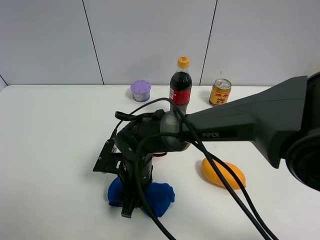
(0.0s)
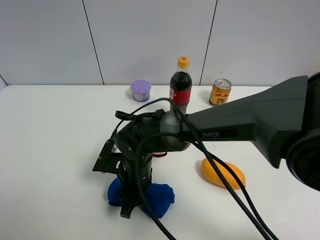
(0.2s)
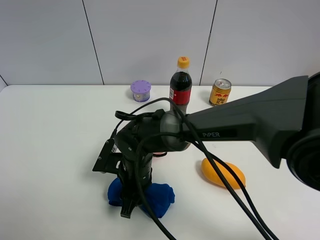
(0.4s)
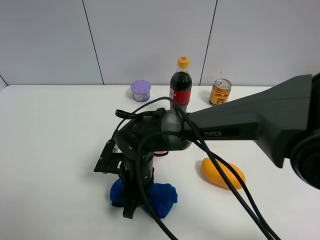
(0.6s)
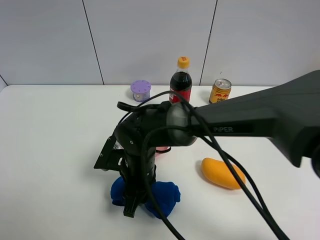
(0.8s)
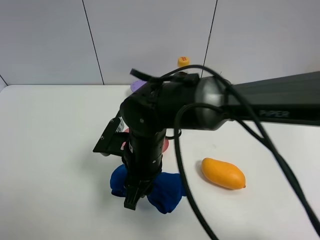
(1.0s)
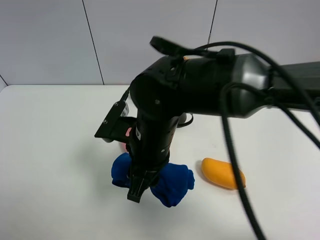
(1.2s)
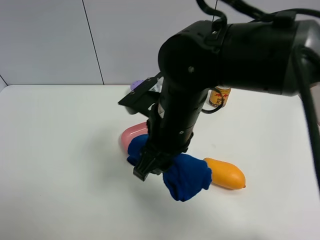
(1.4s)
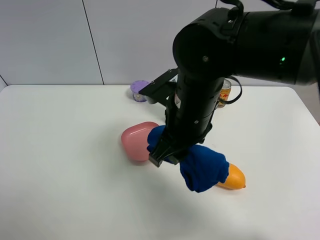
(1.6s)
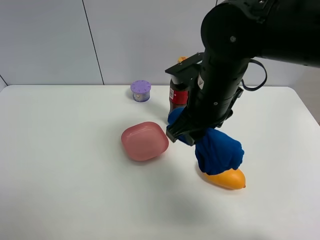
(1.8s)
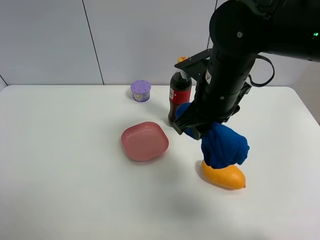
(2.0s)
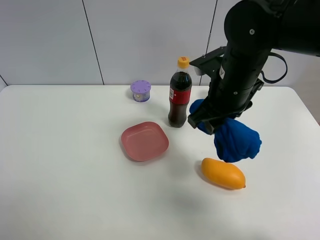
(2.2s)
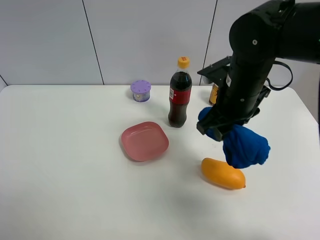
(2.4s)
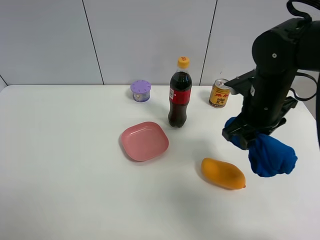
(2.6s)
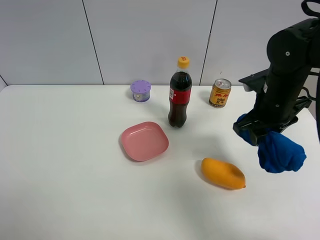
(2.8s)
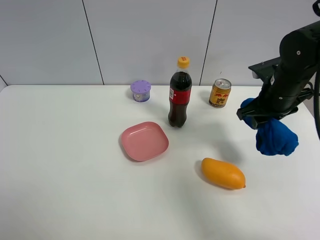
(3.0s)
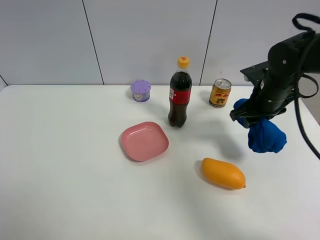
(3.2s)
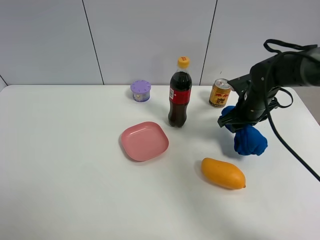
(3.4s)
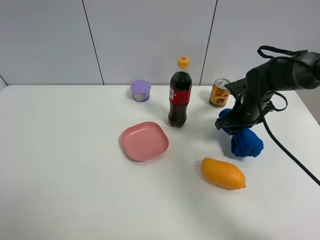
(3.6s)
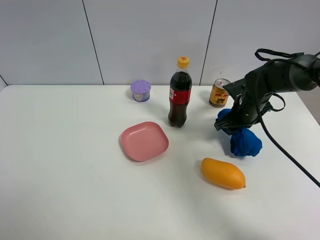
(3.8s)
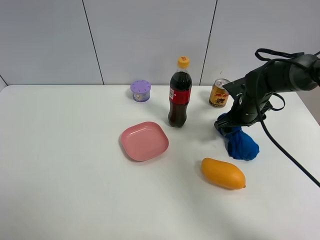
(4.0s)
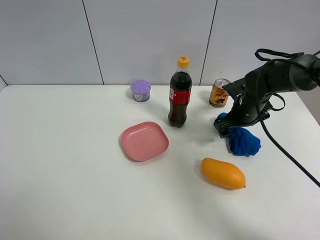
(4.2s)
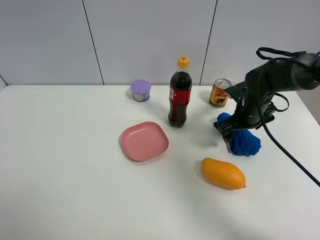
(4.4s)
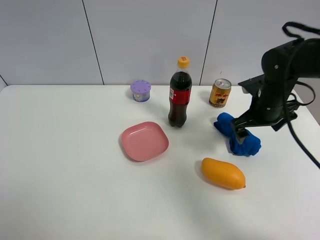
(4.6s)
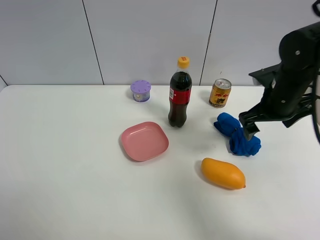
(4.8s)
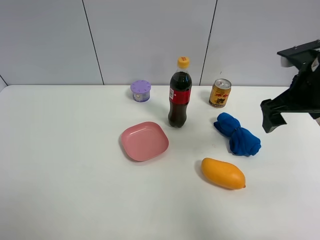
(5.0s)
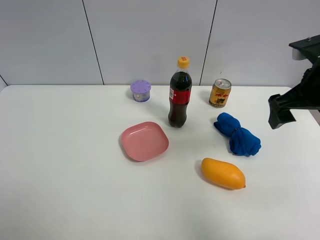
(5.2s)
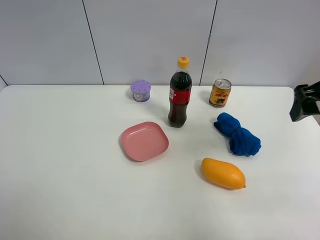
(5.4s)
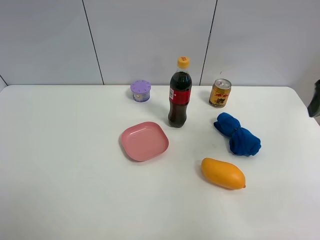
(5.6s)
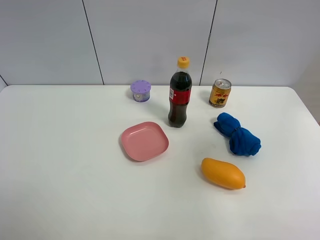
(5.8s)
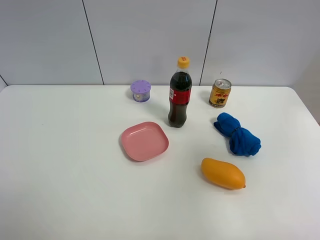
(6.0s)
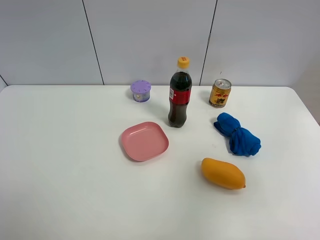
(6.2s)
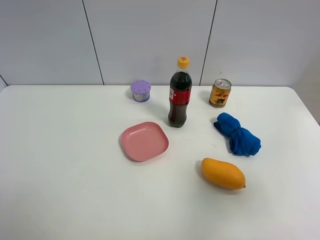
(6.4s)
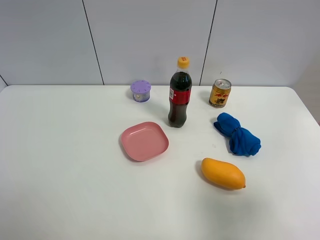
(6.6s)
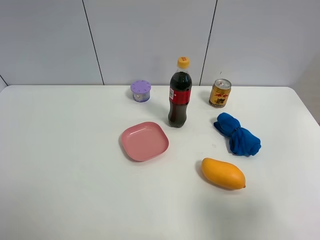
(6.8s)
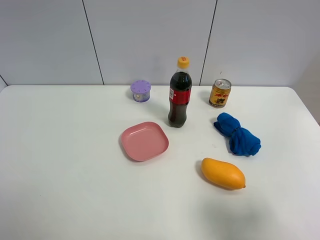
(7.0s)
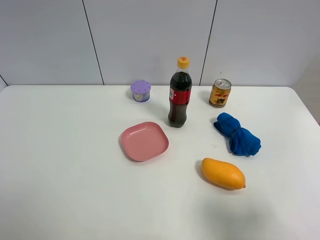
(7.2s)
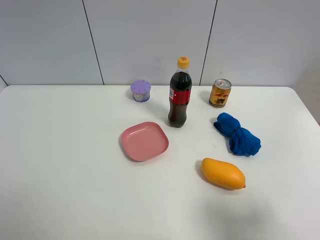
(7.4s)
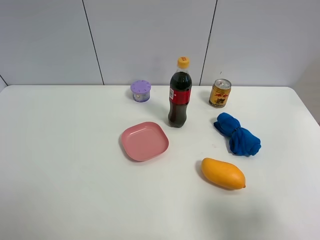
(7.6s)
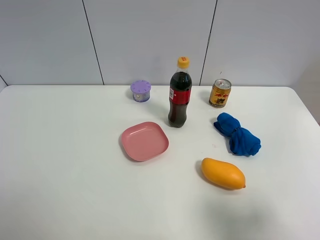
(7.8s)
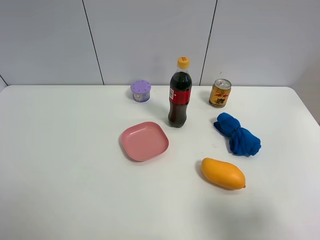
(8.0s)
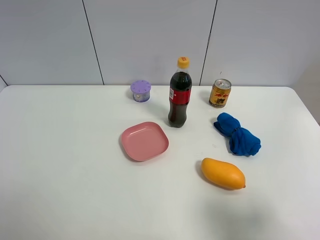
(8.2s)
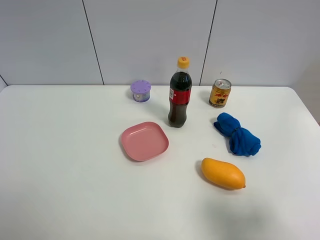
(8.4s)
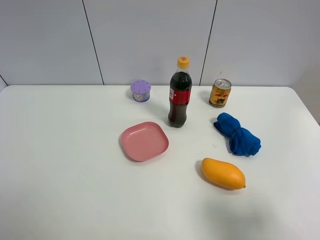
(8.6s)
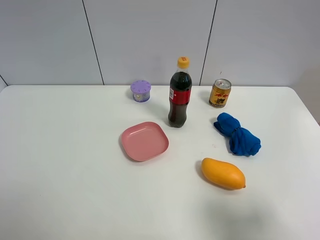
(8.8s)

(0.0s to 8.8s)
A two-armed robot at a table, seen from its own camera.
Task of the whole recording: the gripper move the object.
Step, 0.6s - 4.4s: Place the blue towel on the table with the right gripper.
0.0s - 1.4s: The right gripper heads upward and to the right, covering about 20 cm.
1.4s - 3.0s: The right gripper goes about 25 cm to the right and forward.
3.0s - 4.4s: The right gripper goes some 10 cm downward, and opens.
4.4s - 5.8s: The right gripper is displaced upward and backward by approximately 30 cm.
5.8s - 7.4s: The right gripper shifts approximately 20 cm backward and downward.
7.4s - 8.8s: Both grippers stay about where they are.

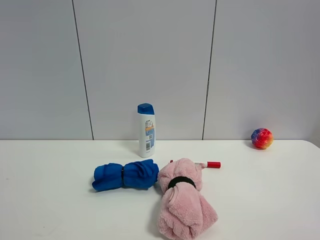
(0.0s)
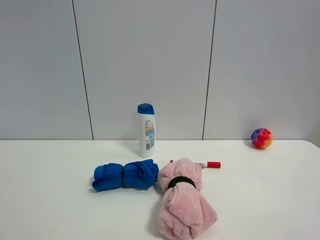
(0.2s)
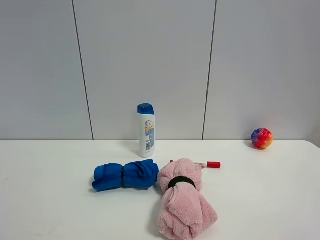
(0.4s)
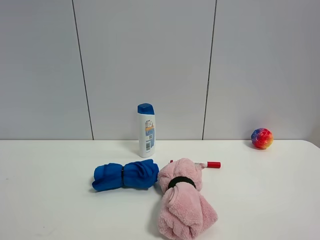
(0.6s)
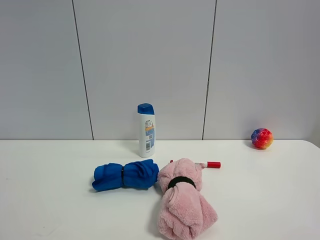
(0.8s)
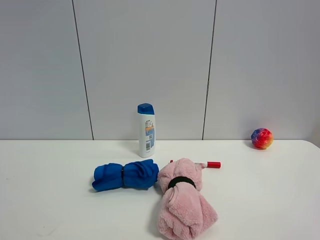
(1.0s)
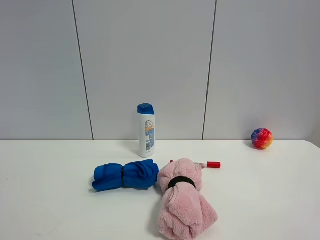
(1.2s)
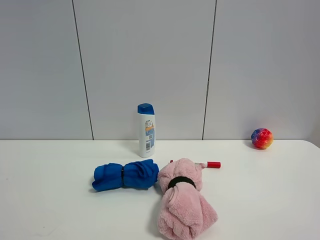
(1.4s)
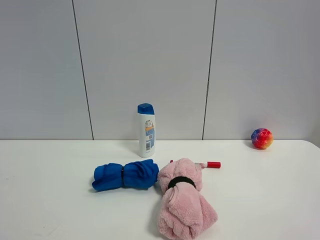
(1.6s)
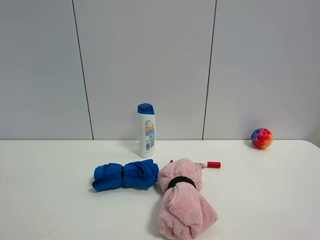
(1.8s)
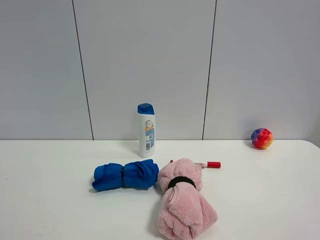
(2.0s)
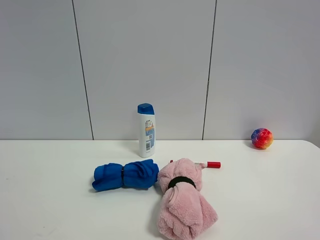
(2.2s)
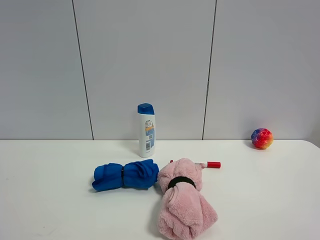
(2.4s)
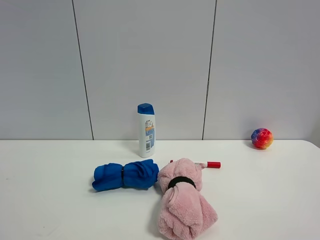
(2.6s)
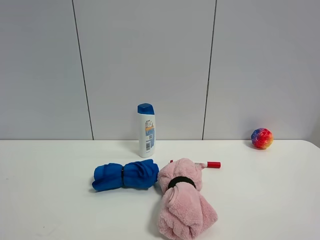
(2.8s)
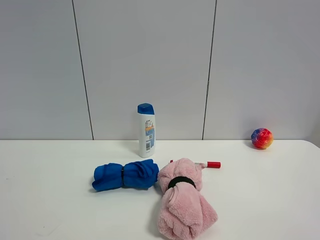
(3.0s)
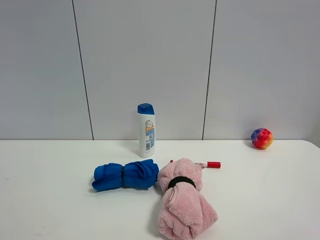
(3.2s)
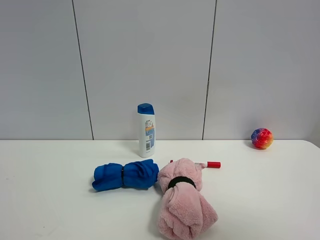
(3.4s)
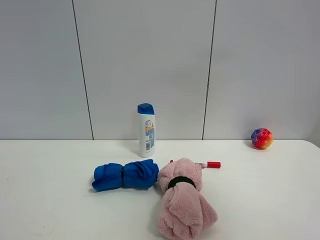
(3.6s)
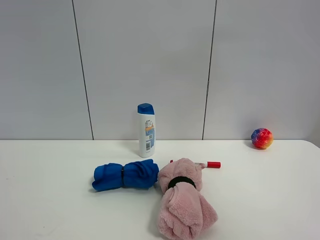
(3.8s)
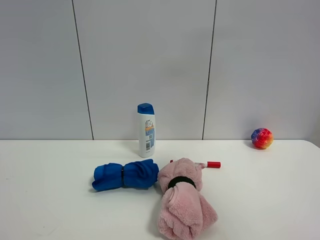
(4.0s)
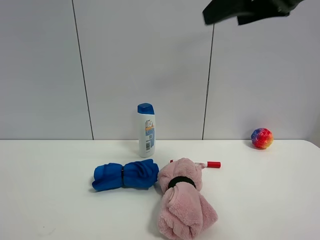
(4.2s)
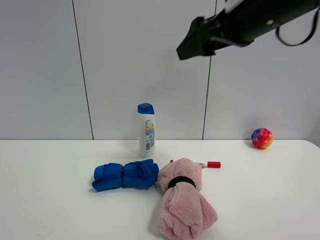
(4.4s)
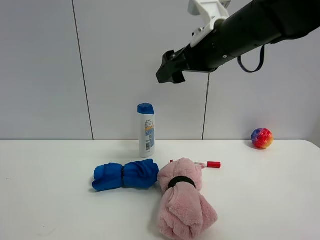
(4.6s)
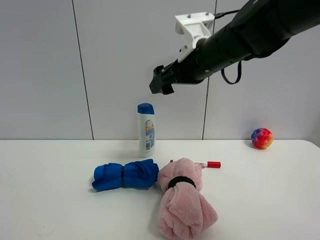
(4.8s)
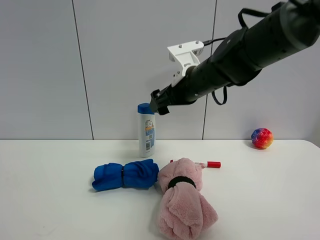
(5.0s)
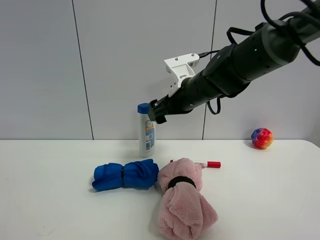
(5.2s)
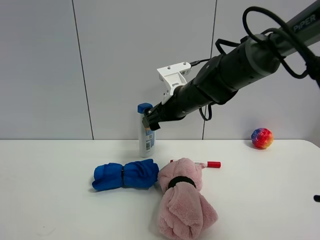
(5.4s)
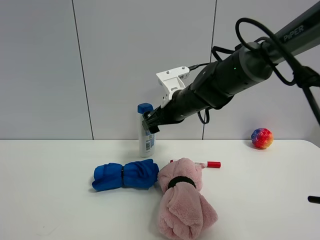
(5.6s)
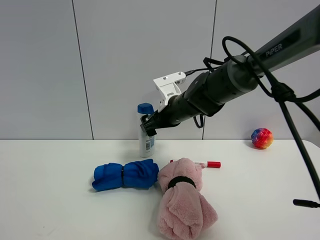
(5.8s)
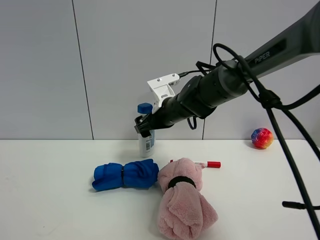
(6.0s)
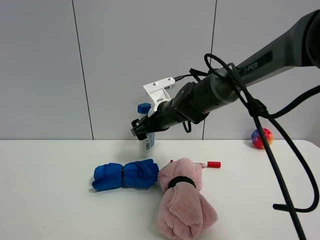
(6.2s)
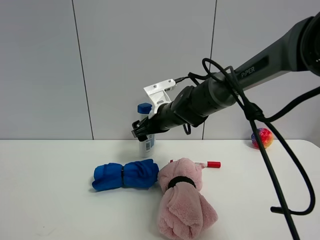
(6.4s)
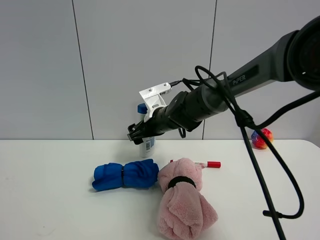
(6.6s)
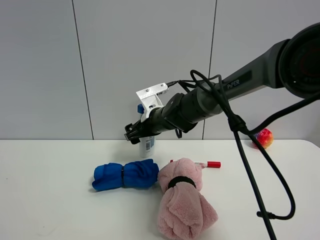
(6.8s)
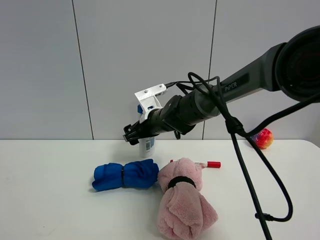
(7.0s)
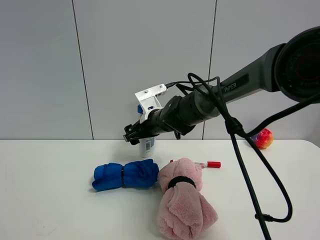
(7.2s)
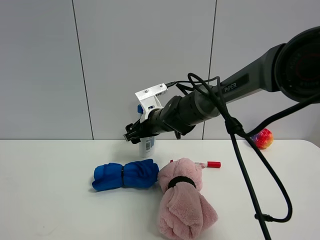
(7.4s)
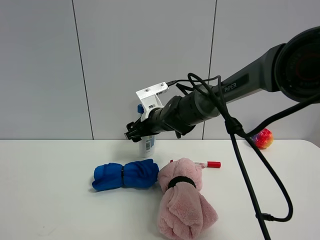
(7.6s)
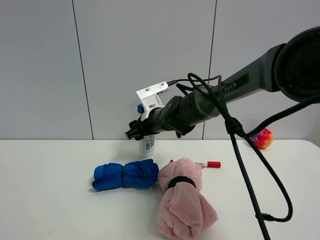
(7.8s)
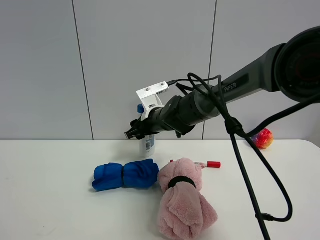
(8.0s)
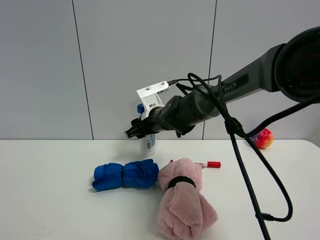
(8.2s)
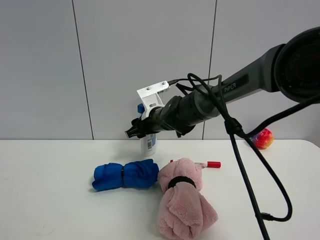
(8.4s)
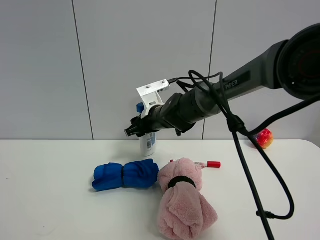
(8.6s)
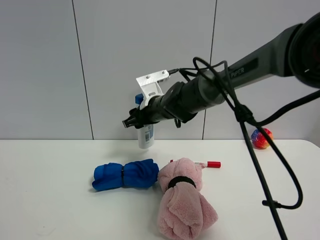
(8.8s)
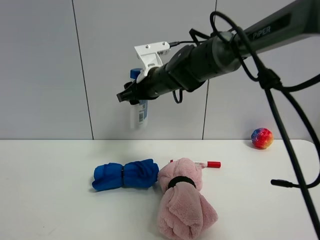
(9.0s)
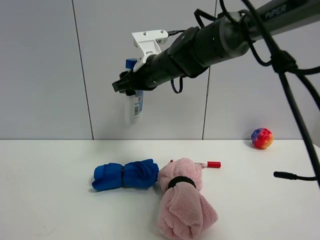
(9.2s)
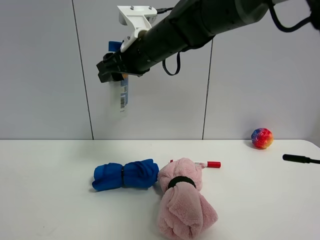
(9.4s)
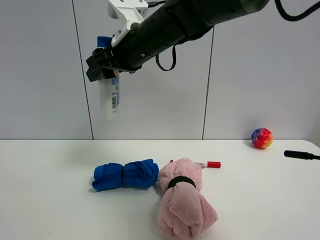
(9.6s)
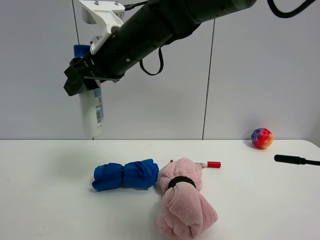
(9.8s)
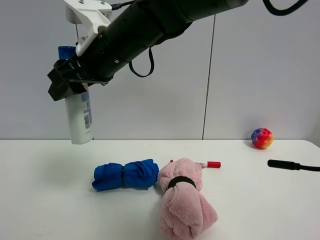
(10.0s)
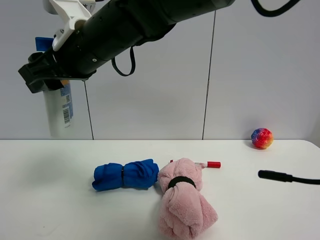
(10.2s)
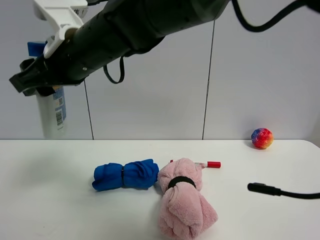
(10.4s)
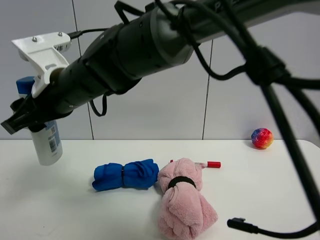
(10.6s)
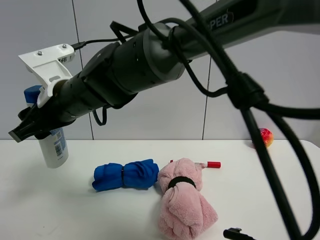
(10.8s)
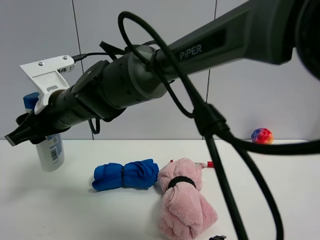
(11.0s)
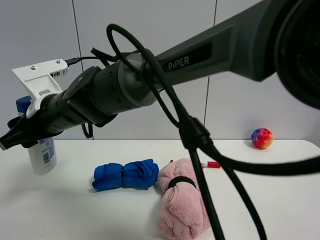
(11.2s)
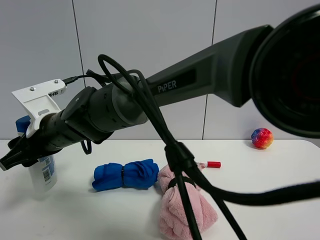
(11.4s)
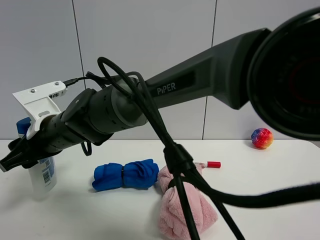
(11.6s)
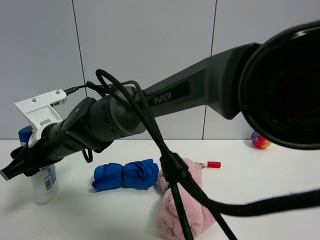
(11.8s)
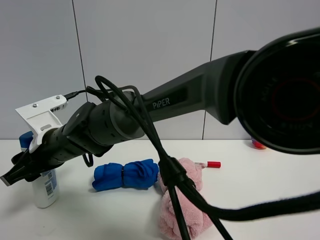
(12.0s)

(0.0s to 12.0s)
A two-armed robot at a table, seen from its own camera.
Task of the whole recording: the gripper move the object.
Step, 0.0s - 8.4s: Grasp the shampoo with the right gripper.
0.0s - 3.0s: The two grippers keep their place.
3.0s - 4.4s: The right gripper goes about 35 cm forward and to the left.
4.4s - 6.0s: The right gripper travels downward, forward and to the left by approximately 25 cm.
6.0s - 7.6s: The right gripper closes its fingers.
7.6s - 9.0s: The right gripper heads upward, covering approximately 10 cm, and closes.
9.0s - 10.4s: The right gripper shifts some 20 cm backward and to the left.
10.4s - 12.0s: The right gripper shifts some 15 cm downward.

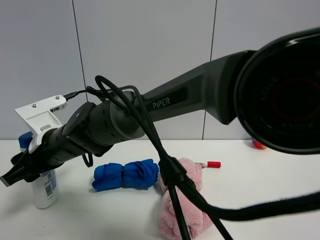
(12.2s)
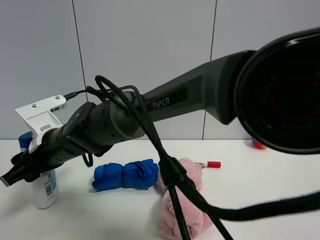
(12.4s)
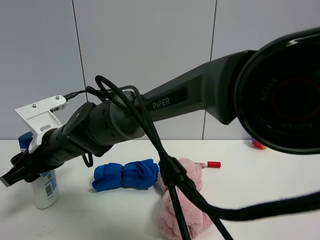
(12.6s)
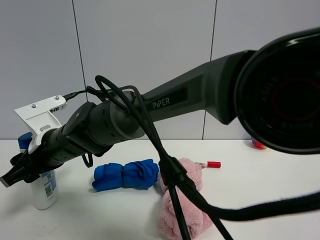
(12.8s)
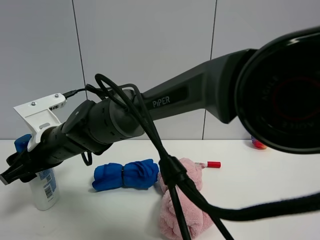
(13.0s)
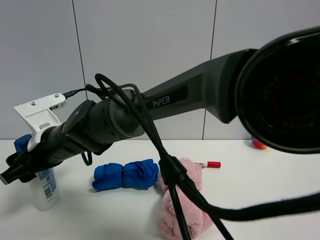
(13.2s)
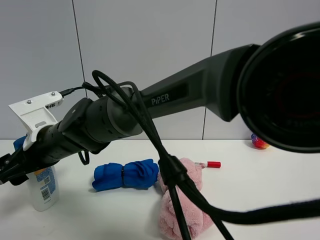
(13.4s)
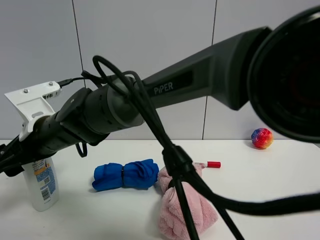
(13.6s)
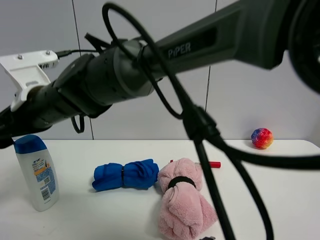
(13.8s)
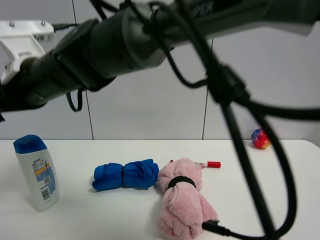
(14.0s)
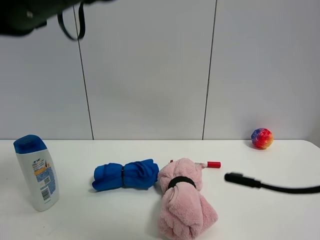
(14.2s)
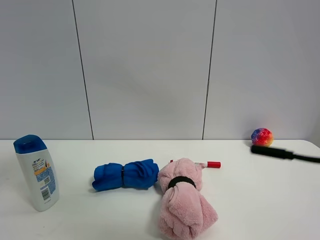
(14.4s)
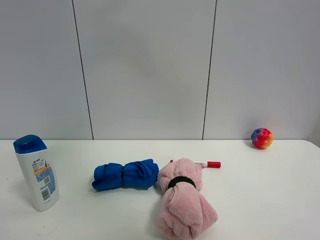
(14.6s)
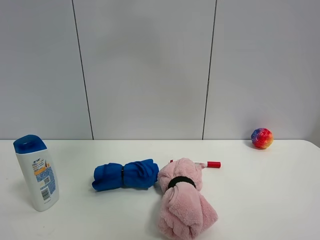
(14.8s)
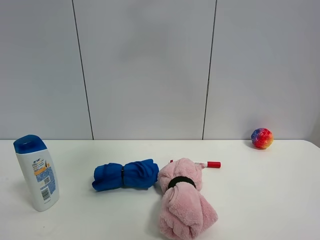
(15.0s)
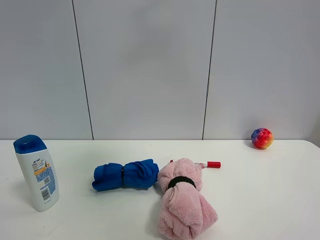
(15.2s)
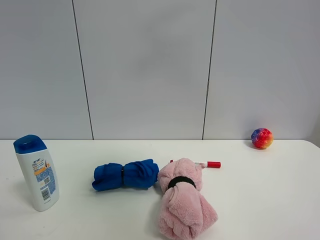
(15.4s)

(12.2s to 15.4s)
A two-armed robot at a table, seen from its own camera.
Task of the whole recording: the gripper move the object.
12.2s - 13.8s: The right gripper goes roughly 10 cm upward, and opens up.
13.8s - 15.4s: The right gripper goes some 40 cm to the right and upward.
